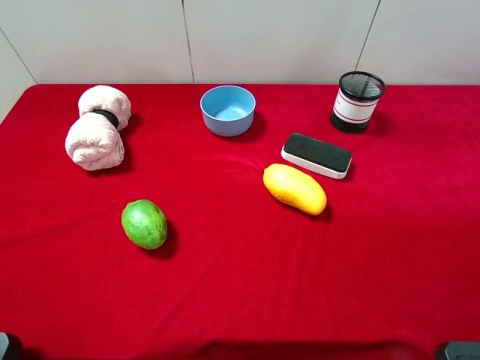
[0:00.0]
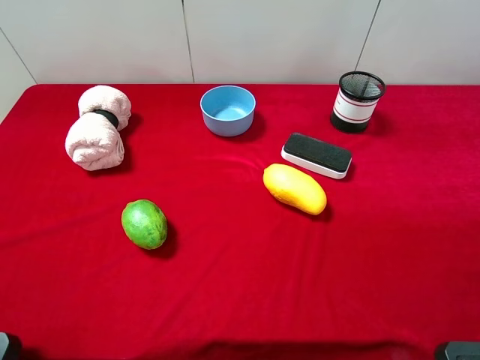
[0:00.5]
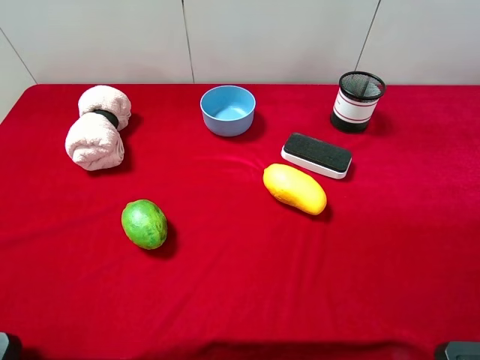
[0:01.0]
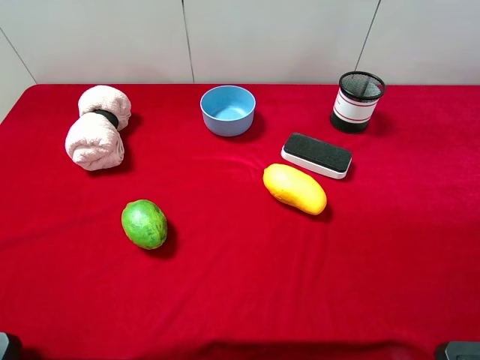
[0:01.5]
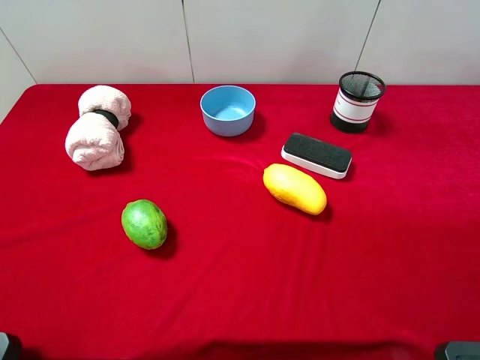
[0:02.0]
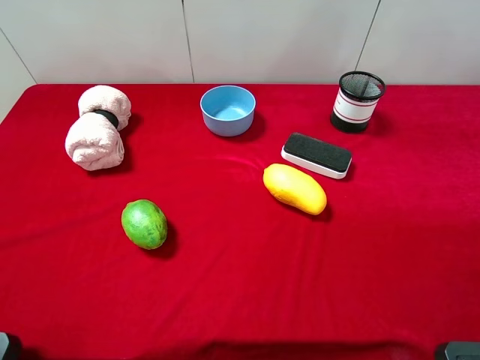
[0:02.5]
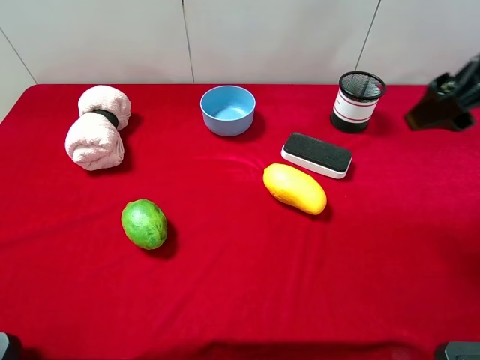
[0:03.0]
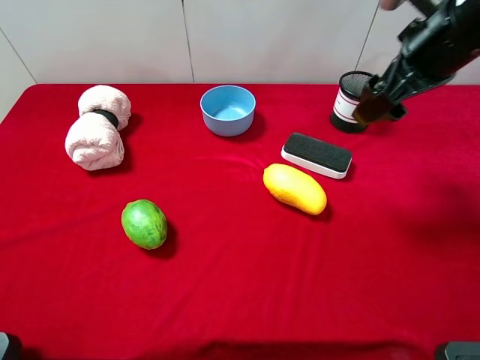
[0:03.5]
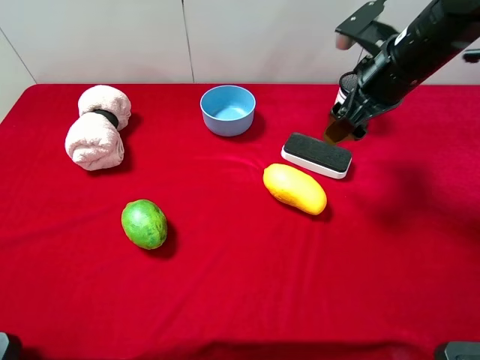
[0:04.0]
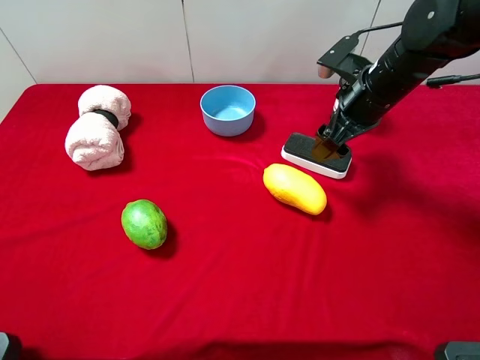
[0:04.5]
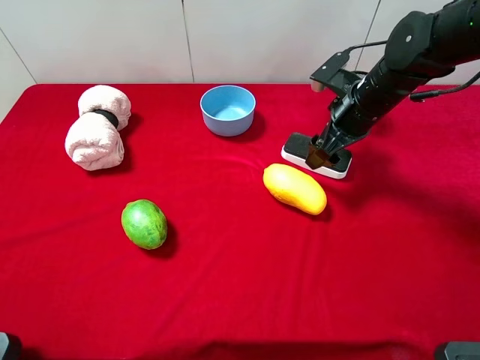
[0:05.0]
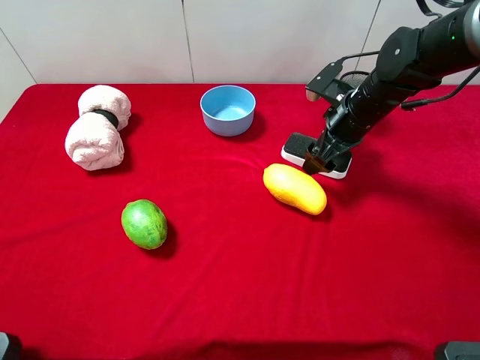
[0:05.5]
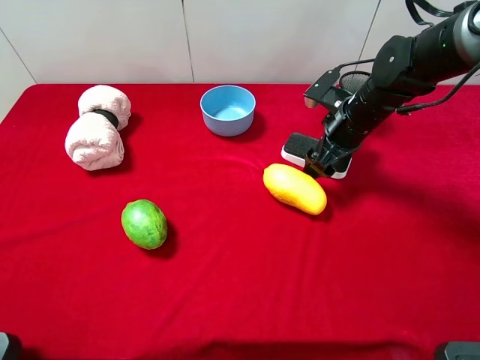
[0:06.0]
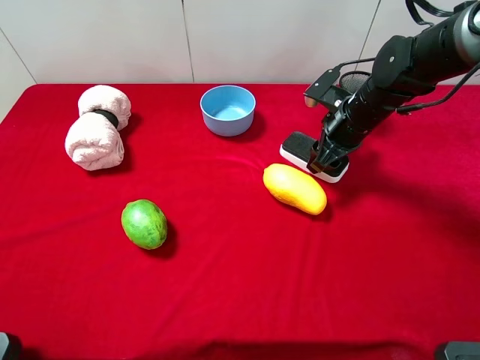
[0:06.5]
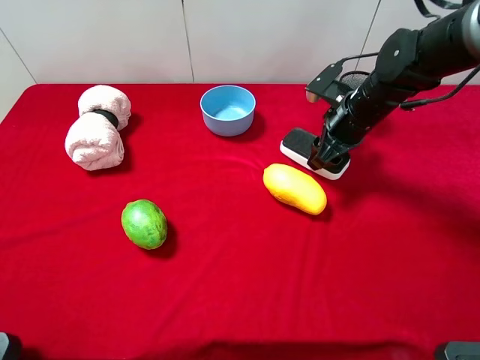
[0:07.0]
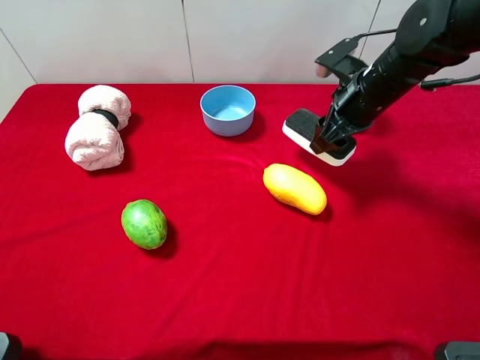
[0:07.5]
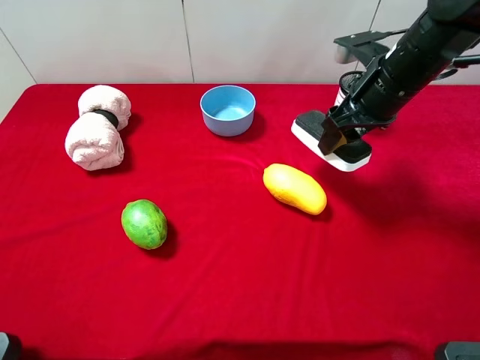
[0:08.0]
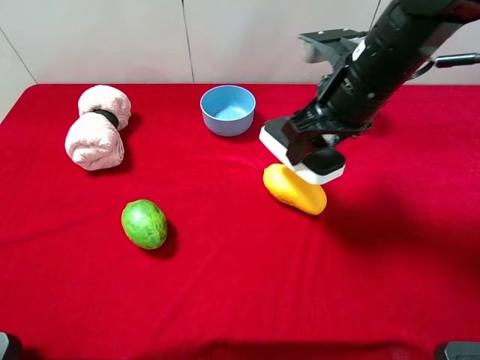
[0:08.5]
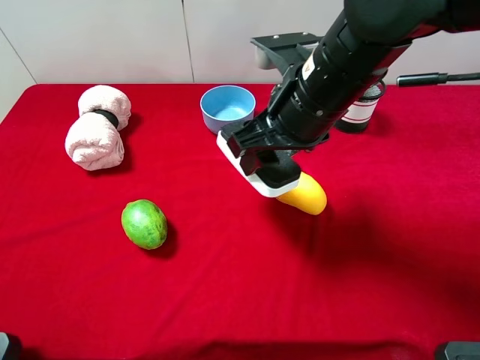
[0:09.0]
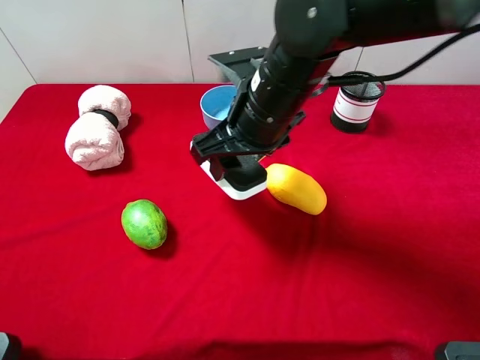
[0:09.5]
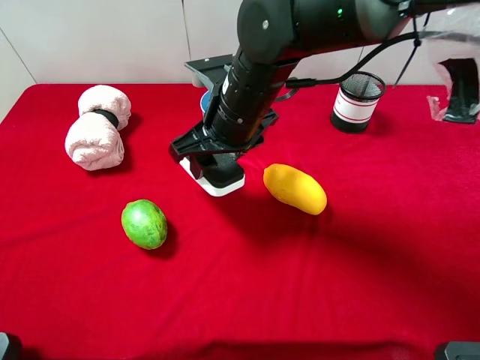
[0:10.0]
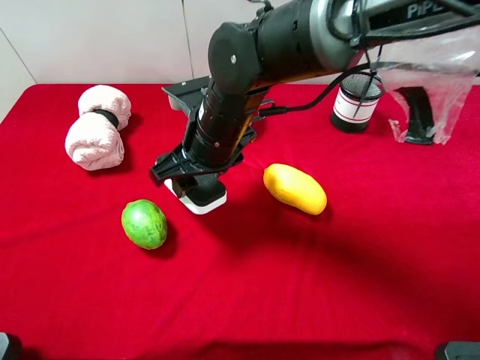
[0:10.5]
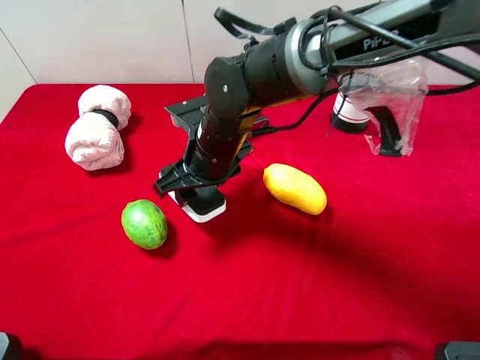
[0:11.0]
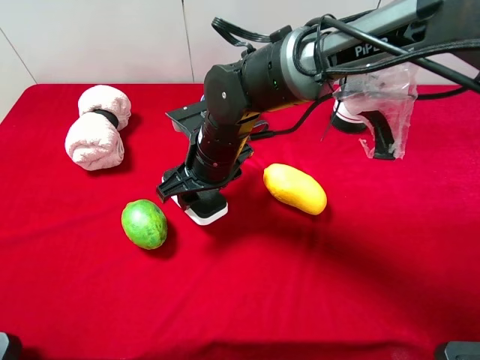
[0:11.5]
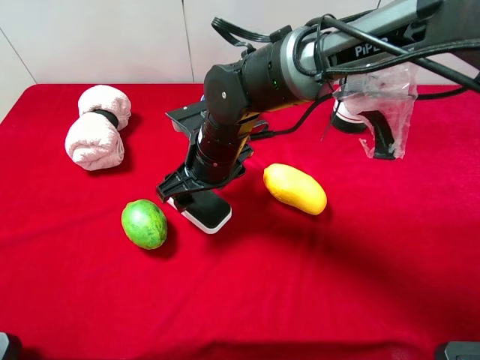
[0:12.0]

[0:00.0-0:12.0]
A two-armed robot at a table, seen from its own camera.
Task of the whole recording: the gripper move the object.
Step, 0:00.0 to 0:06.5: Grasp the white blackboard erasure with the right gripper.
0:02.0 to 0:04.0: The right gripper goes approximately 30 cm forward.
0:04.0 to 0:06.0: The right gripper goes about 10 cm downward.
0:06.0 to 0:08.0: The right gripper moves upward, some 10 cm, and closes its fingers.
0:08.0 to 0:10.0: The right gripper goes about 20 cm to the left.
0:10.0 to 0:12.0: The right gripper travels downward by approximately 5 cm, and opens up.

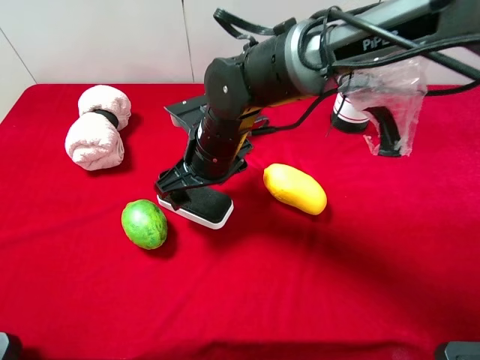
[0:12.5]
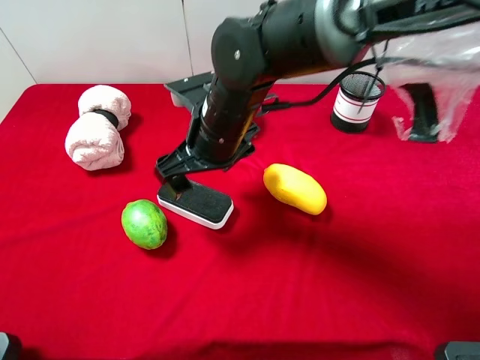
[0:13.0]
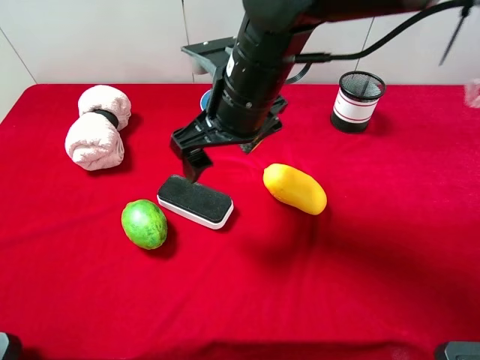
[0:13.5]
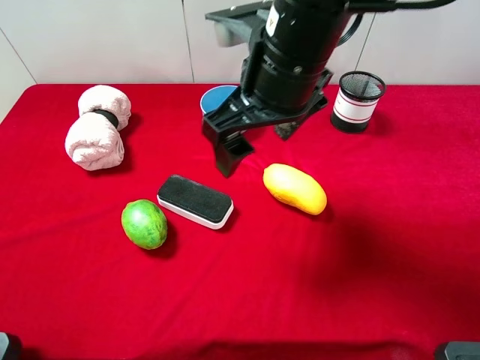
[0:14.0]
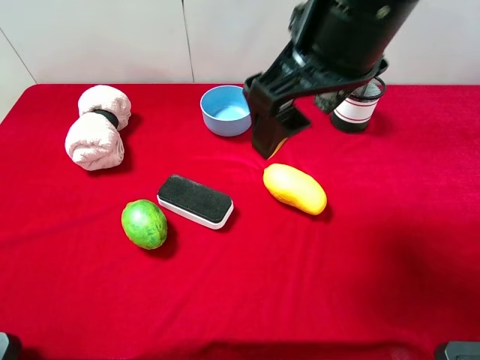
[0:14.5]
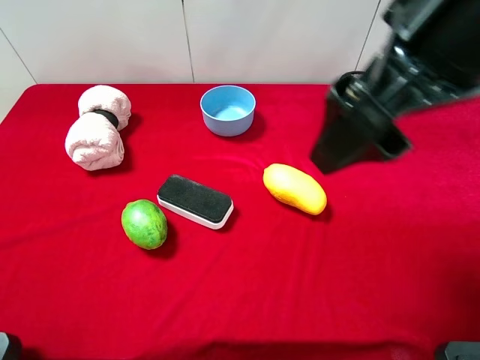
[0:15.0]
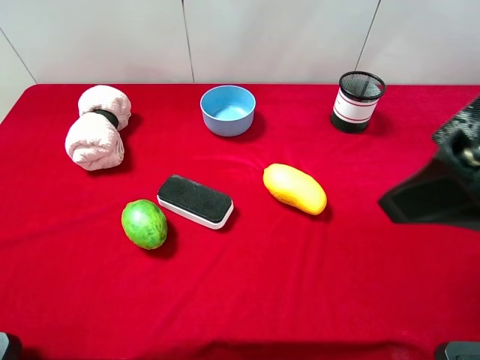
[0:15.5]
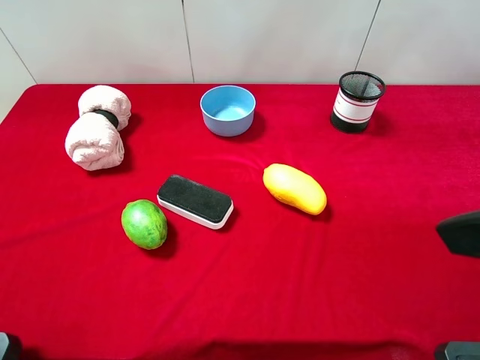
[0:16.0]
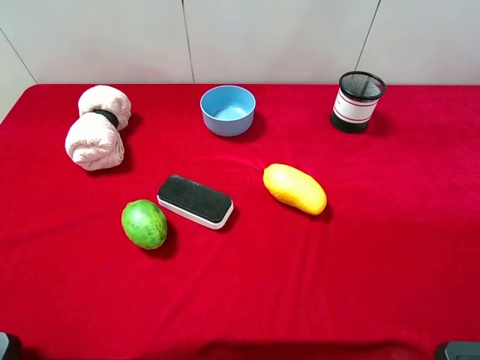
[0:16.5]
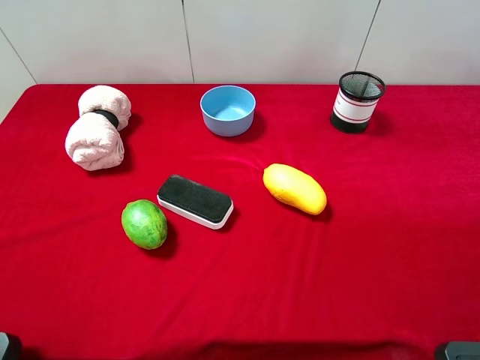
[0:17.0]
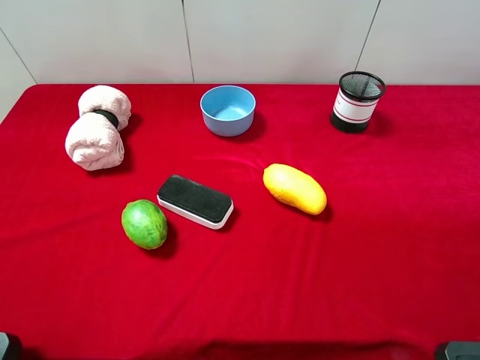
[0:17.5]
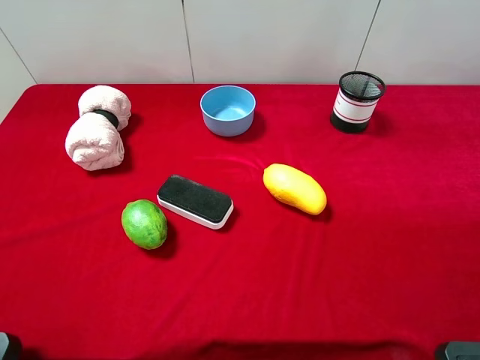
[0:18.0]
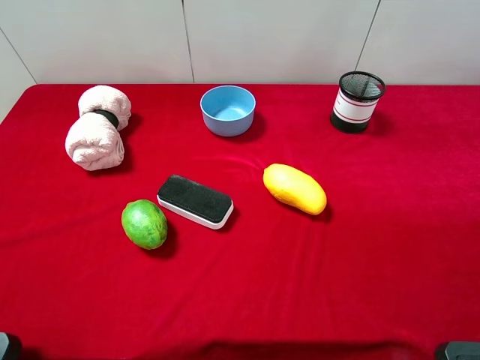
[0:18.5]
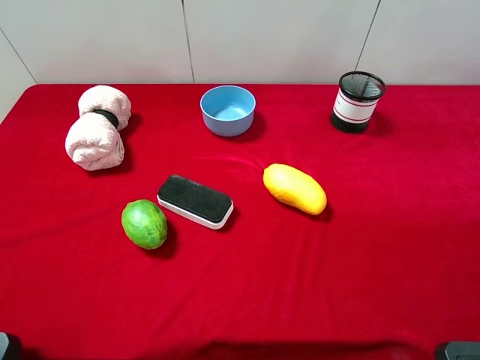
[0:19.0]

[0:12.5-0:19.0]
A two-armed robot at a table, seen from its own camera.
Task of the whole recording: the gripper move the object.
0:12.5 to 0:14.5: The right gripper travels upward and to the right by some 25 cm.
0:14.5 to 0:17.0: The right gripper is displaced to the right and backward by approximately 30 cm.

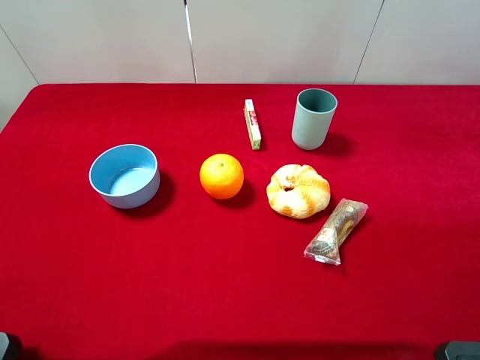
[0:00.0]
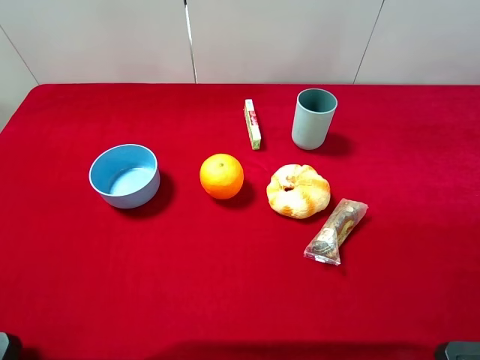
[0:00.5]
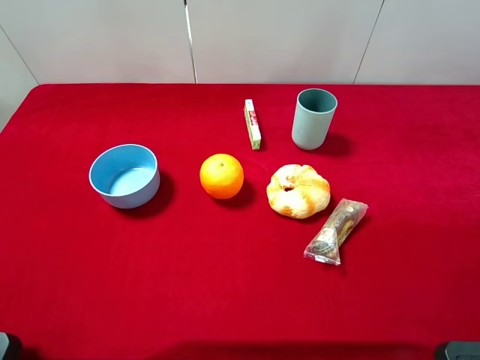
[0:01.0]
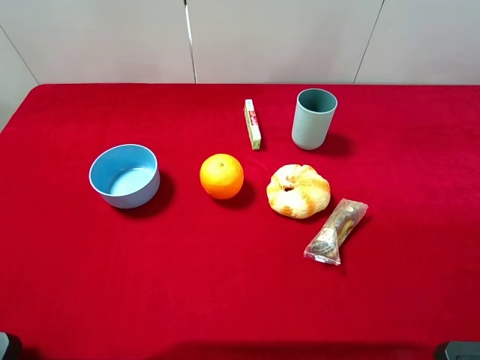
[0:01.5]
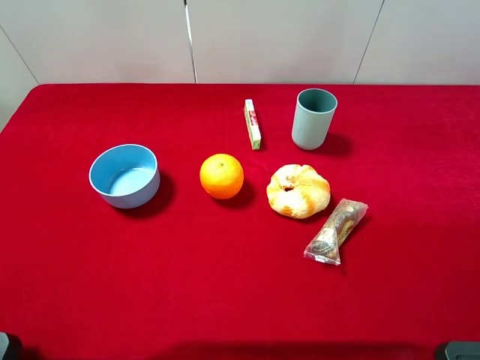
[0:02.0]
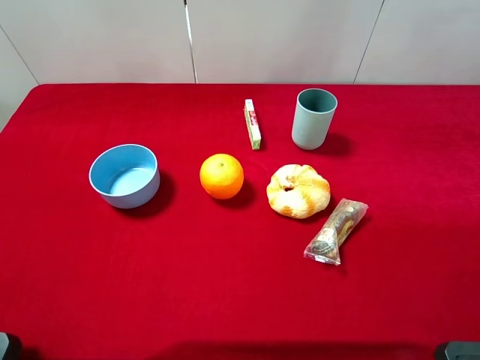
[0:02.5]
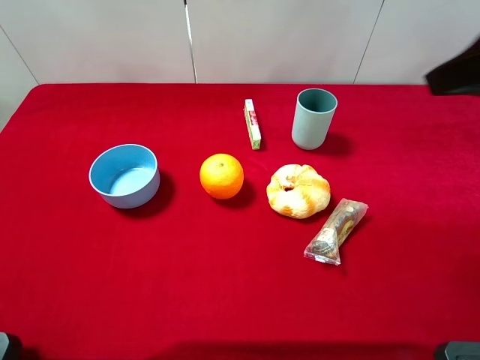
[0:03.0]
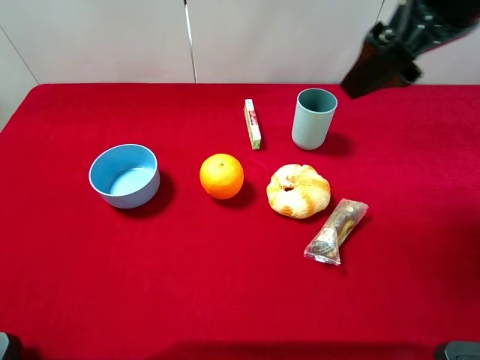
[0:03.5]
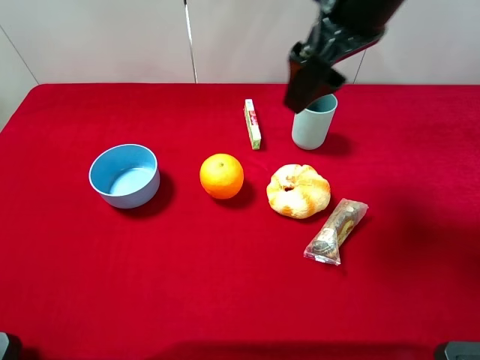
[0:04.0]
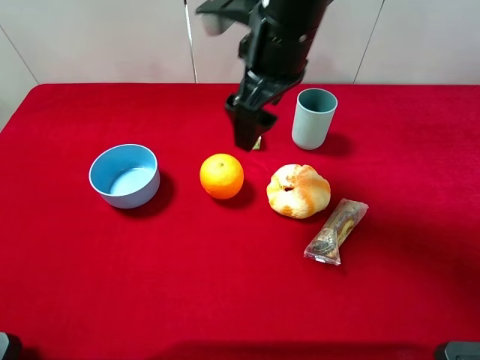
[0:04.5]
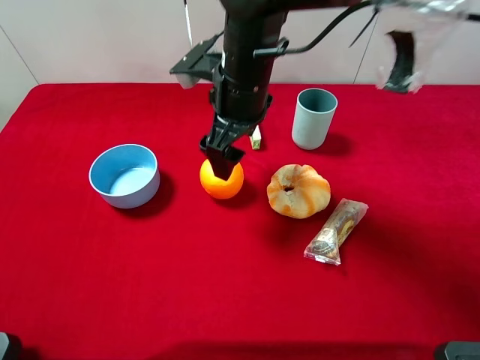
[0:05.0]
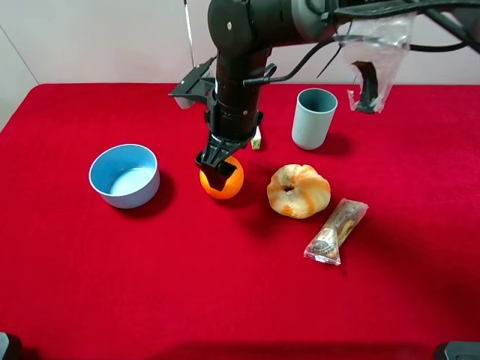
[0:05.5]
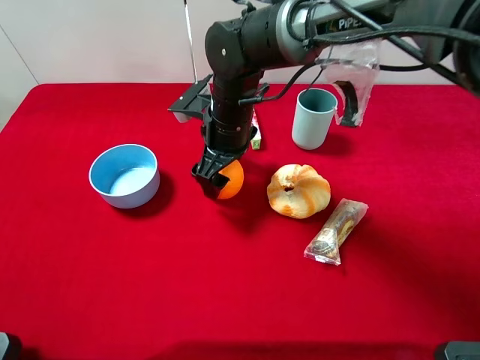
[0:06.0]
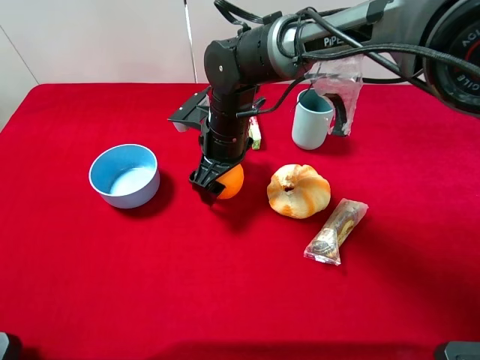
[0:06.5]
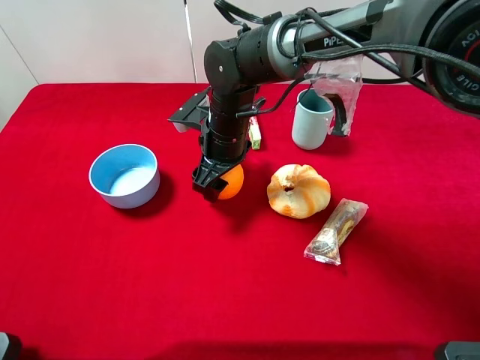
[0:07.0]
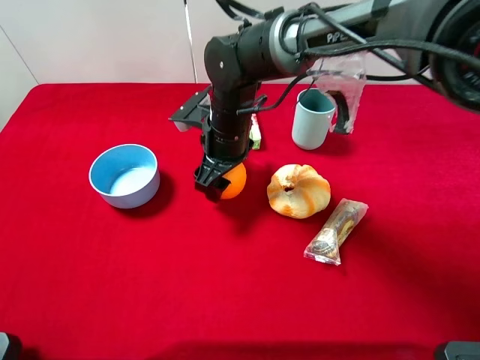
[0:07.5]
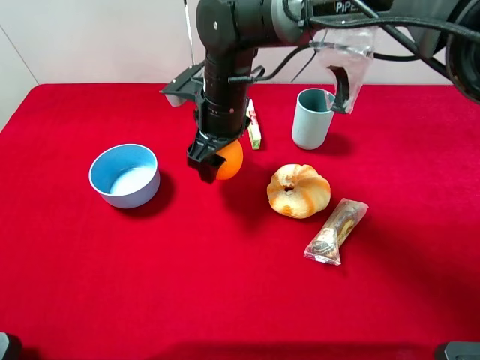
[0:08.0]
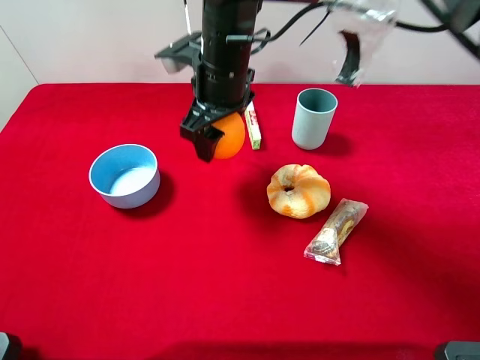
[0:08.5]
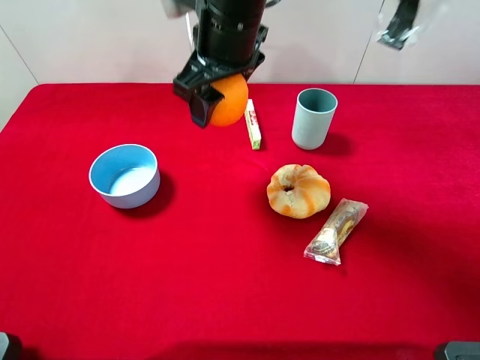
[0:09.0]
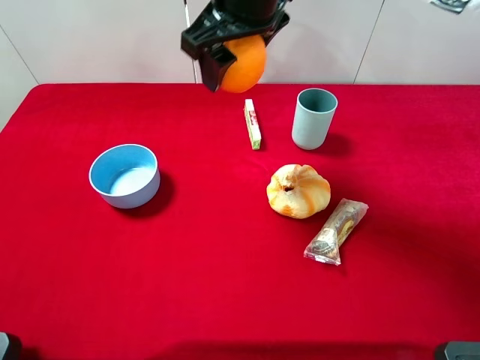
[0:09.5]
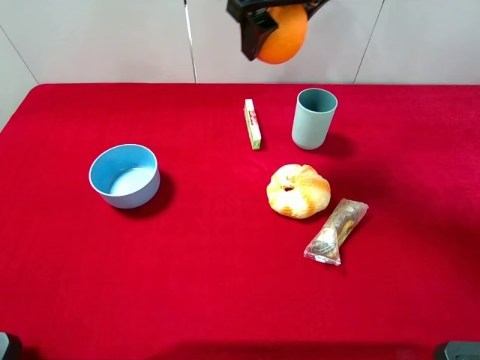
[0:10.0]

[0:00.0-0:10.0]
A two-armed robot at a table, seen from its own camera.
Task of the whole recording: the gripper move the object.
Step, 0:00.0 to 0:06.5: Grasp the orange with the right gripper.
0:00.0 to 0:02.0: Both grippers stay put.
0:02.0 to 0:04.0: The right gripper shifts about 35 cm forward and to the left.
0:04.0 to 0:06.0: The right gripper is displaced downward and to the left by roughly 25 cm.
0:06.0 to 0:08.0: The right gripper closes up.
0:08.0 to 0:10.0: The right gripper shifts about 20 cm upward and to the right.
